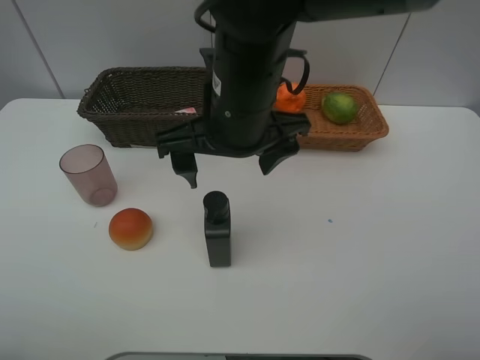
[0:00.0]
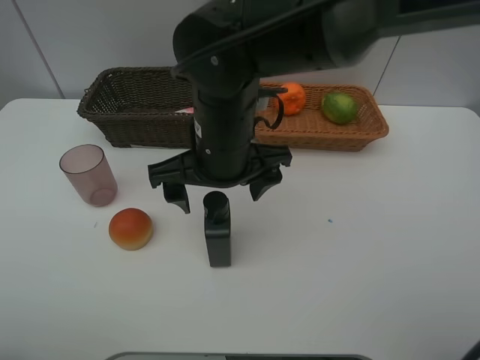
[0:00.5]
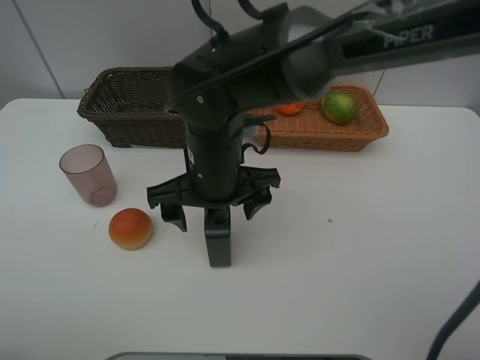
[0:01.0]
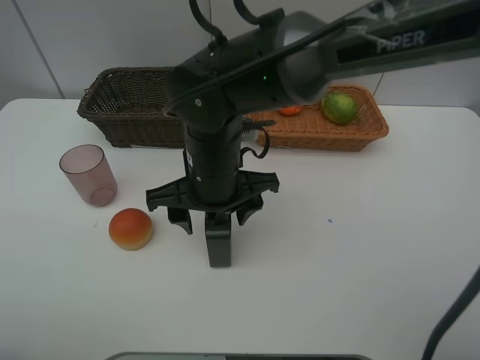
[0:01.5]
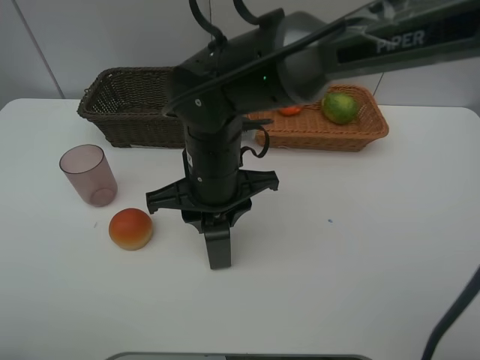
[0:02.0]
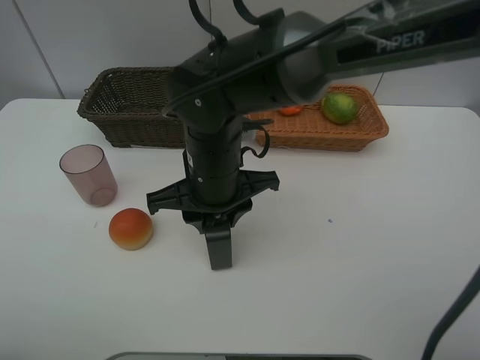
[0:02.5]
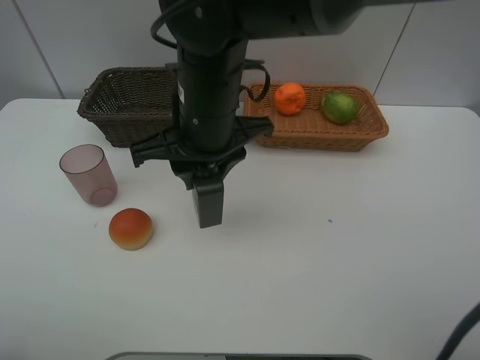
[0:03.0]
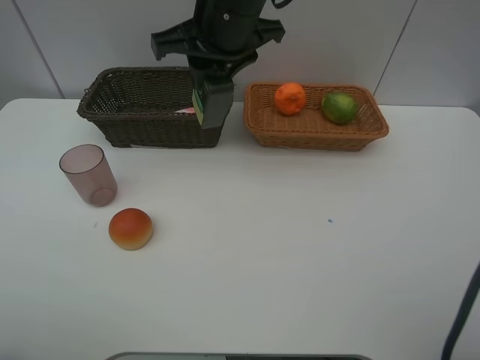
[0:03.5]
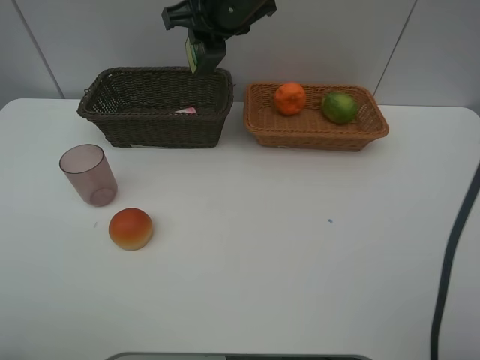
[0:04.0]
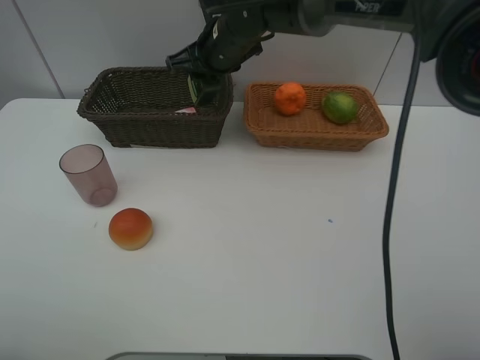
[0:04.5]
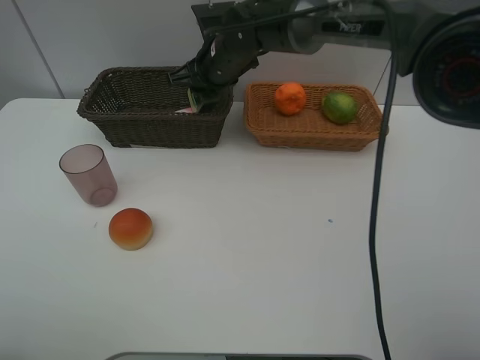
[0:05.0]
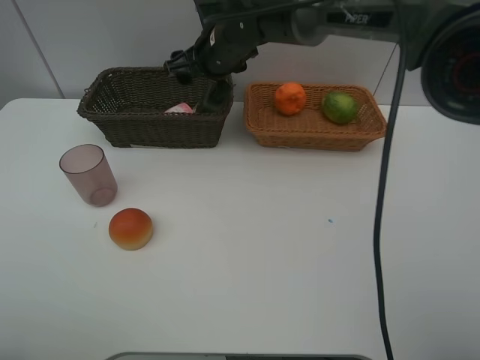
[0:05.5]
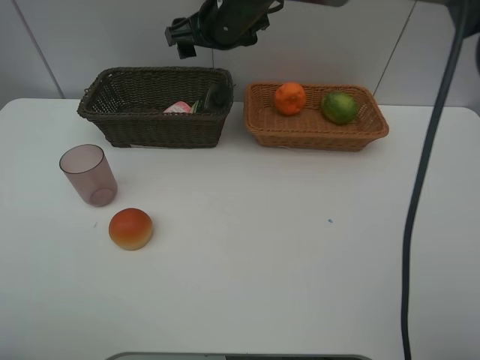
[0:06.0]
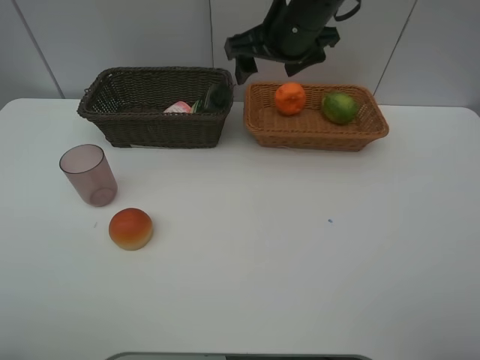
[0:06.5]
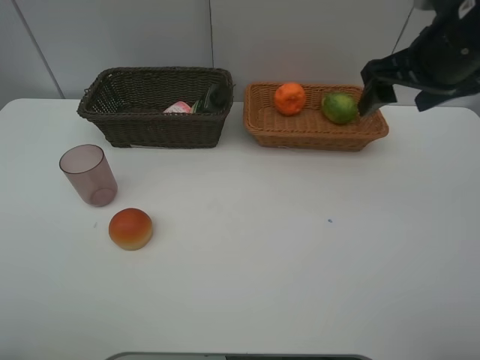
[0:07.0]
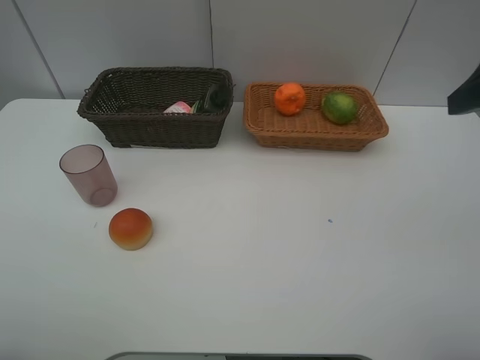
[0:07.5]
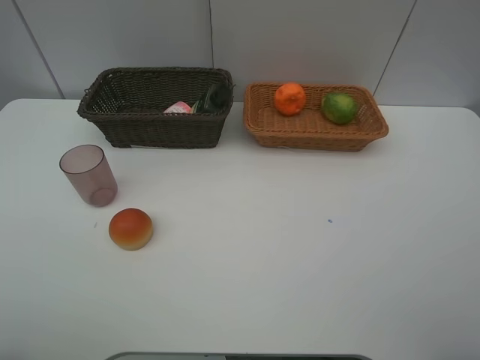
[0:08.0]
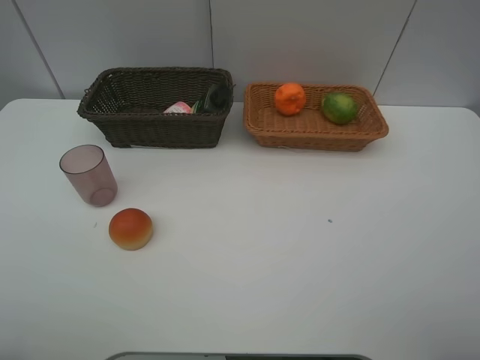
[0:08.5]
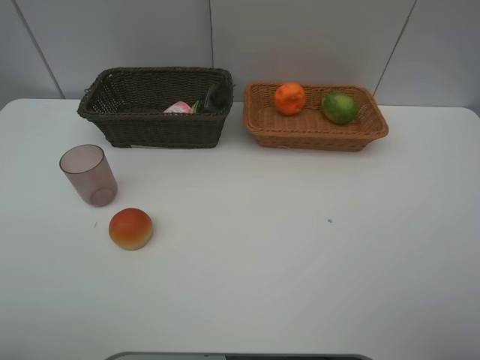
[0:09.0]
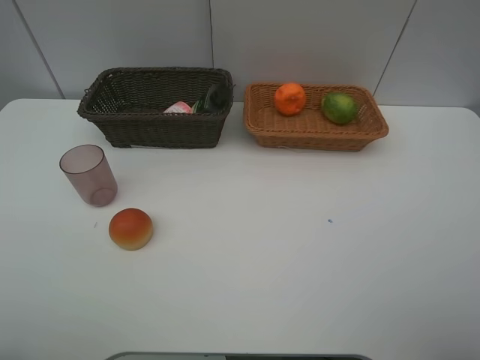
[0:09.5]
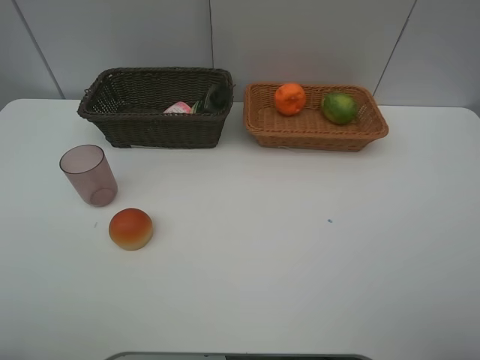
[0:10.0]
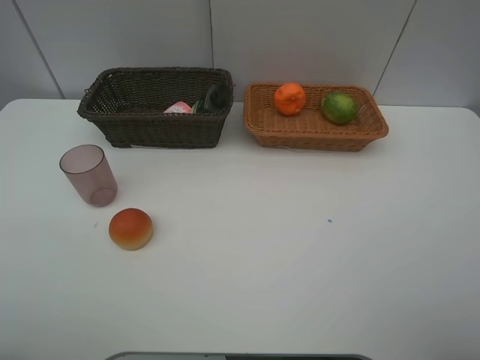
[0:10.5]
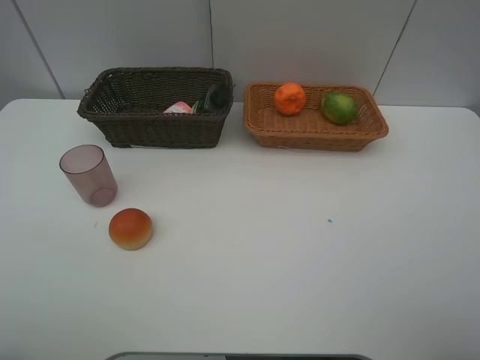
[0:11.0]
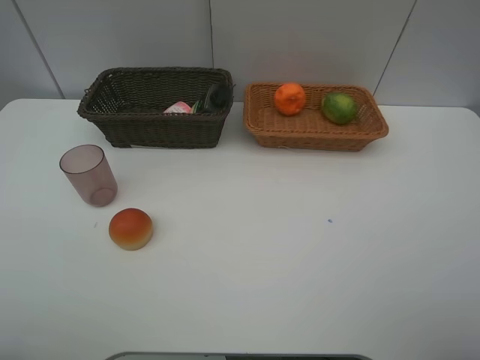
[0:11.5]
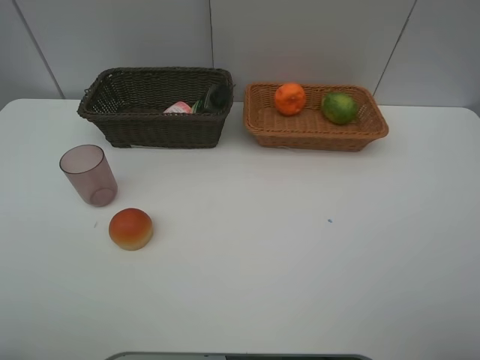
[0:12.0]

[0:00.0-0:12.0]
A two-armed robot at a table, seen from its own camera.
Task of the whole recording: place multiple objects separately in different baskets.
0:00.0 to 0:02.0: The right gripper heads downward, covering approximately 10 cm, and closes.
0:02.0 to 0:04.0: The right gripper heads forward and upward, covering approximately 20 cm.
0:04.0 to 0:06.0: The right gripper reaches some 10 cm downward, then returns, and opens.
0:06.0 to 0:08.0: The right gripper heads backward and to the right, covering about 50 cm.

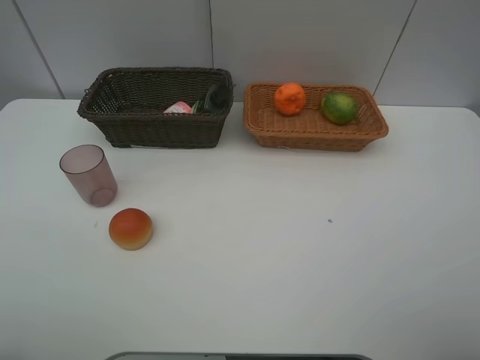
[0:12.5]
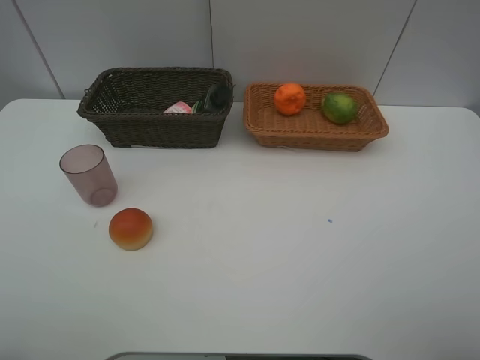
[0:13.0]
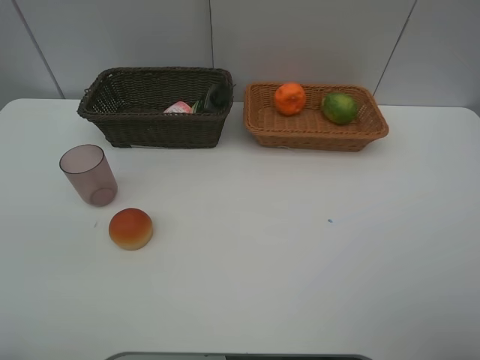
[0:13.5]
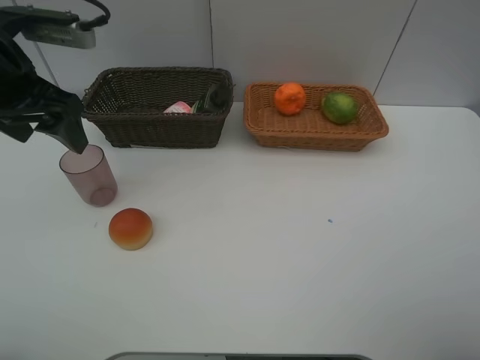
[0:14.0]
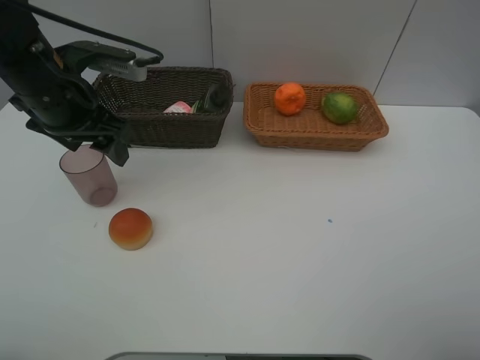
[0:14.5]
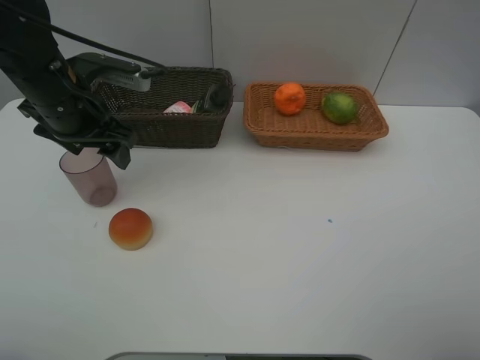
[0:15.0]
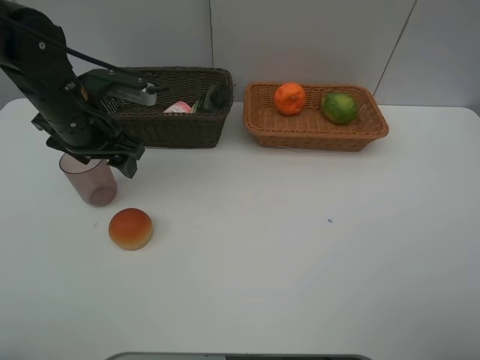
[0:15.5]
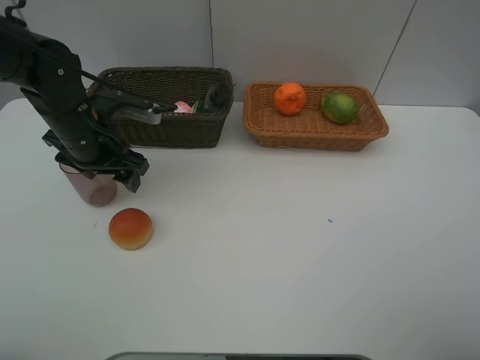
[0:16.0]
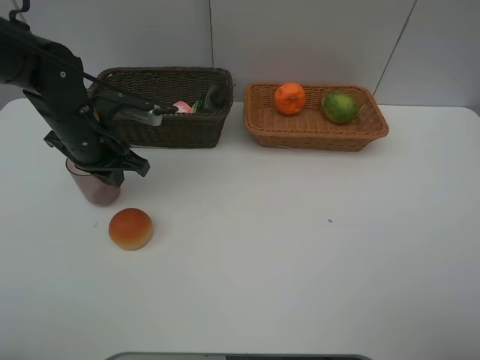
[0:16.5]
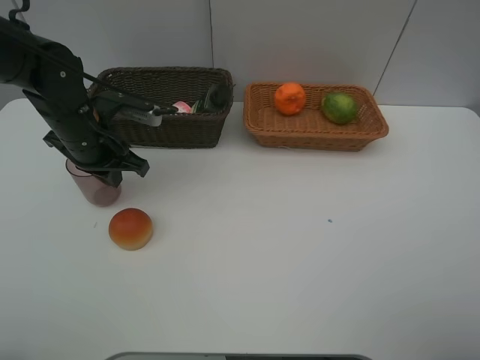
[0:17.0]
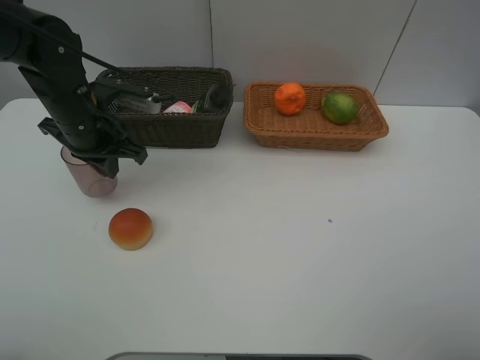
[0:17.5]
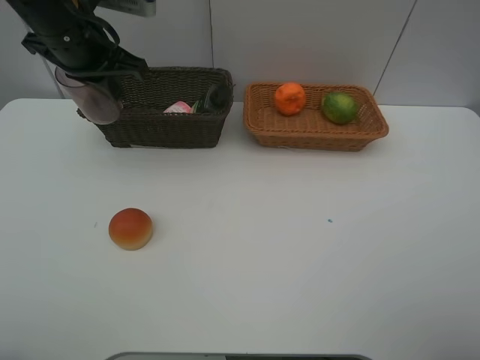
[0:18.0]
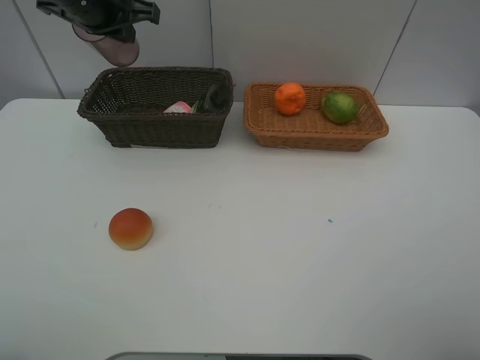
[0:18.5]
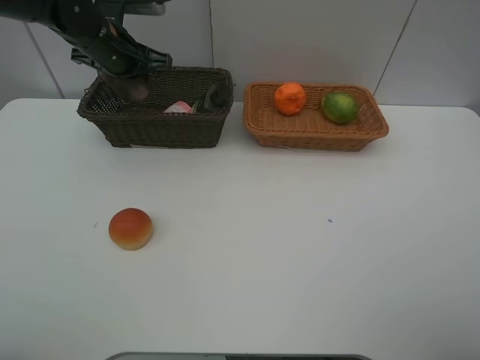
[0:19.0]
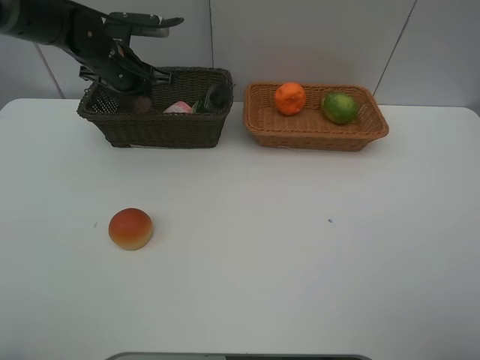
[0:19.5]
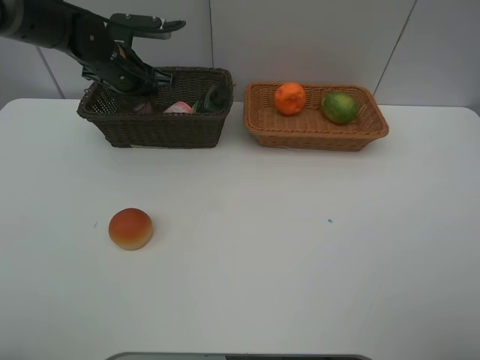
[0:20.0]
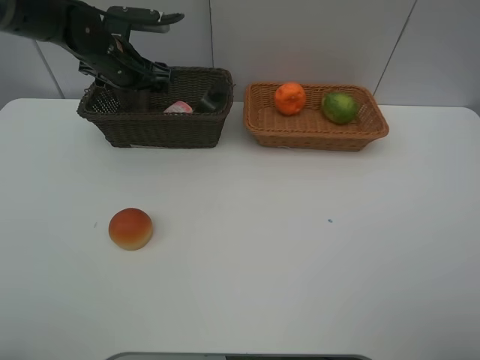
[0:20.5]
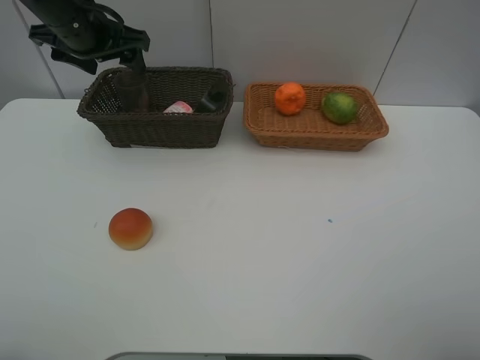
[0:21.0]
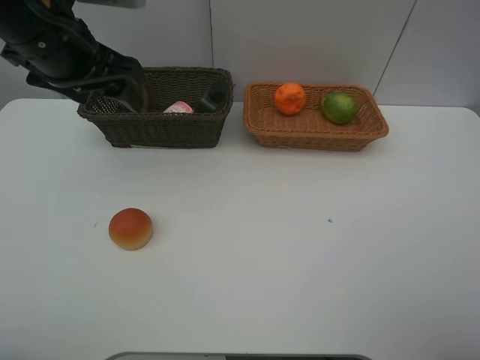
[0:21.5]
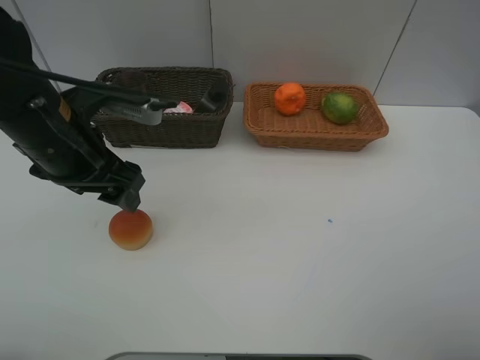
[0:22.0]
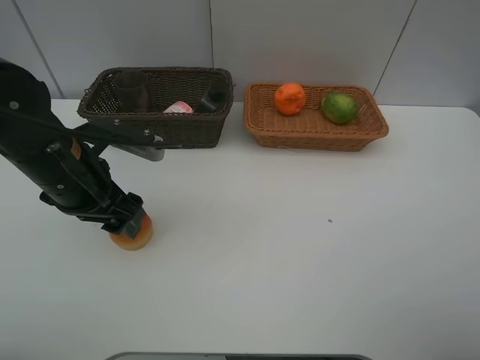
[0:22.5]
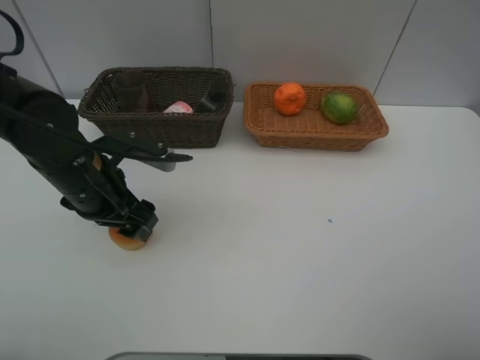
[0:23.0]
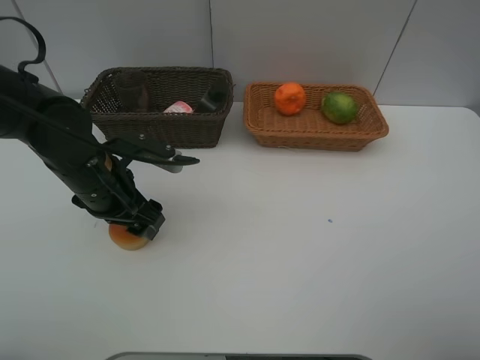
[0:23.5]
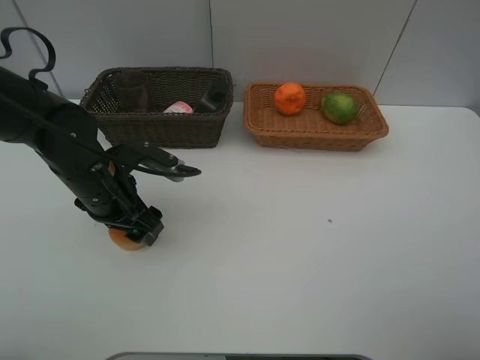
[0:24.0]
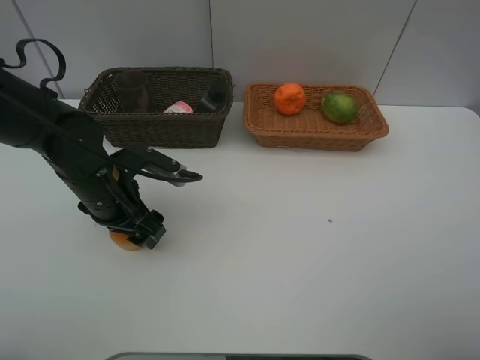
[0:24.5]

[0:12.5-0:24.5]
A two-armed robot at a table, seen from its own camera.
Task of the whole recording: place multiple objects separately in different baskets.
0:12.5 to 0:14.5: The left gripper goes approximately 30 cm forward.
0:14.5 to 0:16.5: The left gripper is displaced downward by roughly 10 cm, and closes up.
0:16.5 to 0:18.5: The left gripper goes some 15 cm upward and forward.
0:18.5 to 0:20.5: The left gripper moves downward, about 10 cm, and opens its fingers.
0:20.5 to 0:22.5: The left gripper moves backward, roughly 20 cm.
0:22.5 to 0:24.5: The left gripper travels downward by approximately 5 cm.

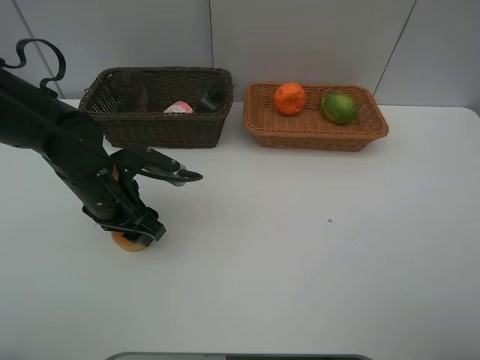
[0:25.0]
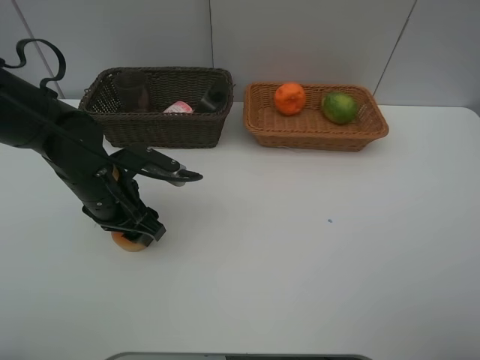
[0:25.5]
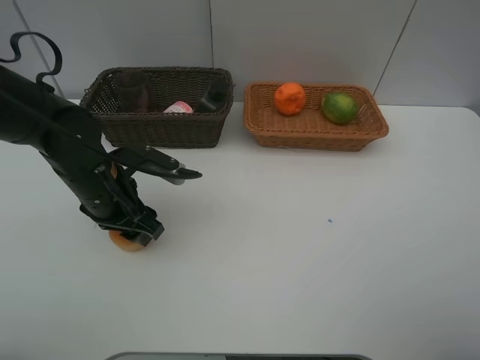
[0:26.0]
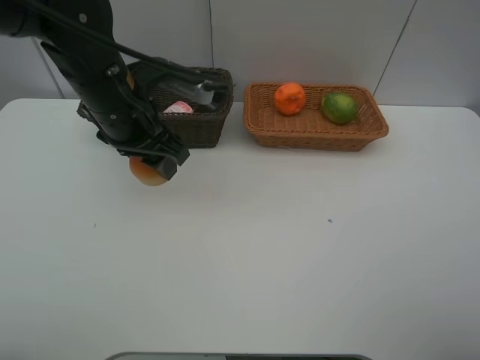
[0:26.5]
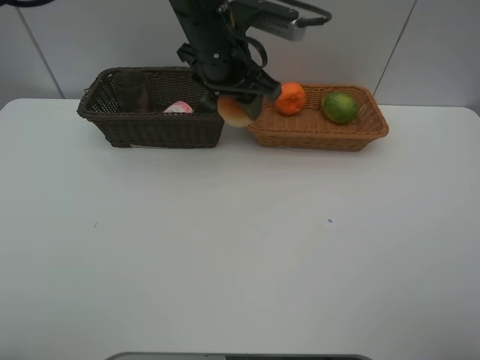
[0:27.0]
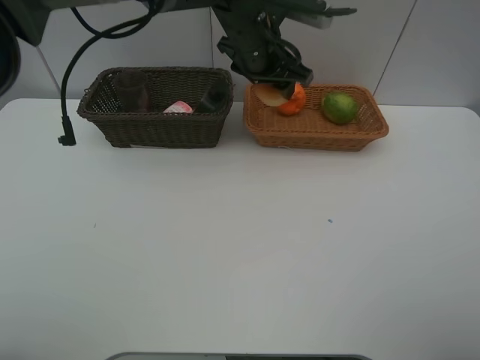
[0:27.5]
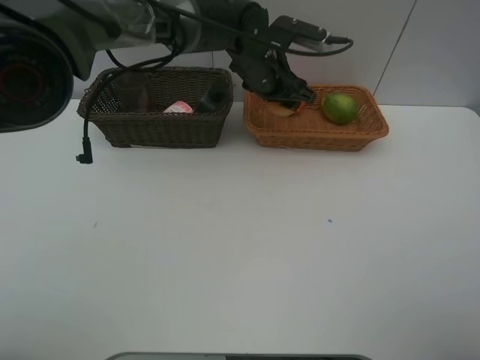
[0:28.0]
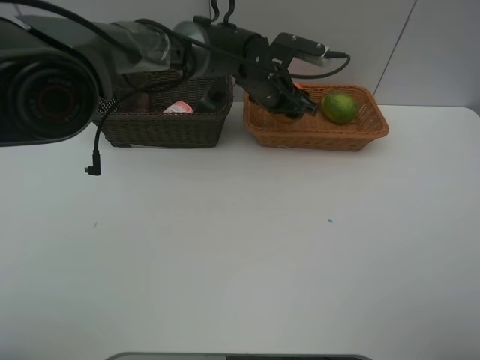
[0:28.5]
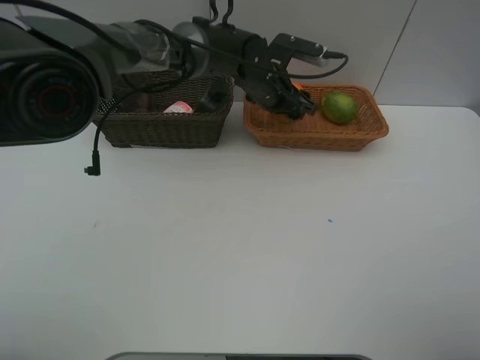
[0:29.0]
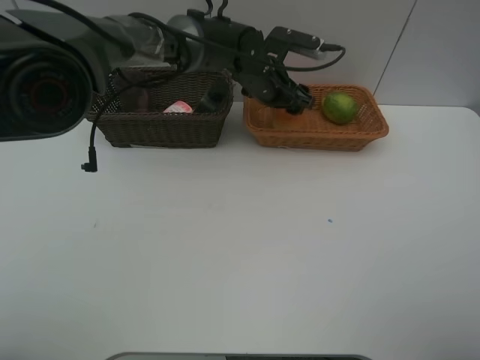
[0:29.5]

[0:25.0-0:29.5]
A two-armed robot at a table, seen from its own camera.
Task of the whole recording: place multiple objects separately in different baskets.
0:25.0 to 0:27.0: The left gripper travels to the right, upward and forward by some 25 cm.
0:27.0 to 0:29.5: The left gripper moves downward, forward and to the right, some 15 cm.
